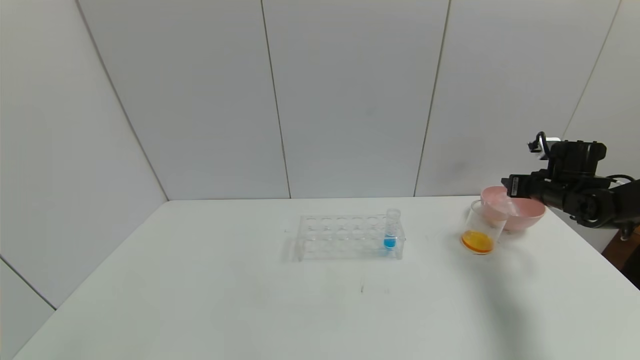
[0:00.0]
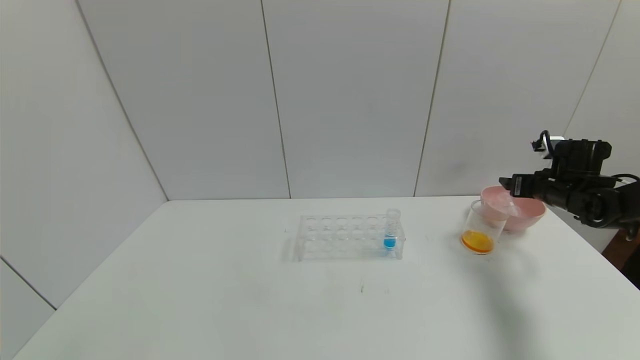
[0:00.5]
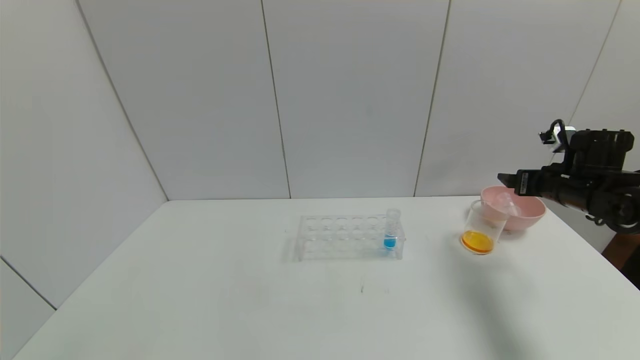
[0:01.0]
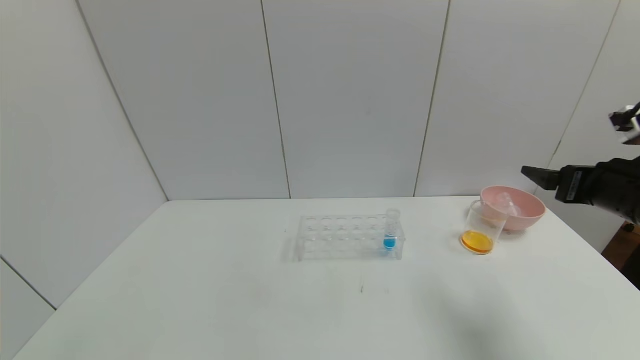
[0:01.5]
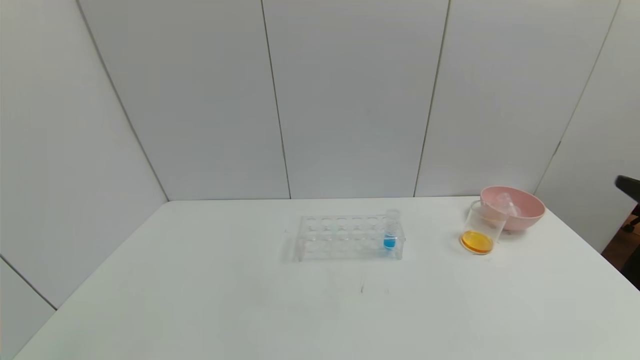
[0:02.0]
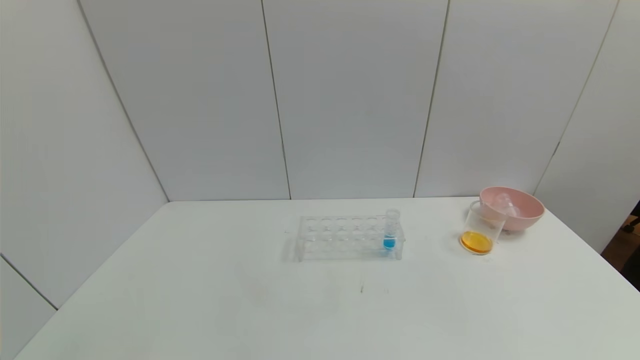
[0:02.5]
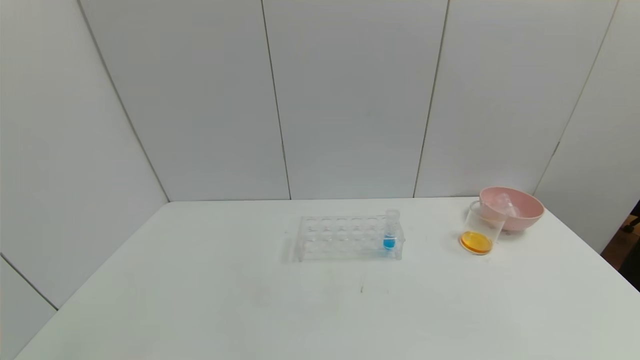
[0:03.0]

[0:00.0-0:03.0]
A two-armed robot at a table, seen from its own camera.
Task of the whole recording: pick up the test tube with yellow pigment and the test tube with red pigment by grippers and pour them into the beaker.
0:00.0 to 0:01.5: The right gripper moves backward and upward, roughly 20 cm, and opens.
0:01.5 to 0:03.0: The right gripper heads backward, covering roughly 35 cm.

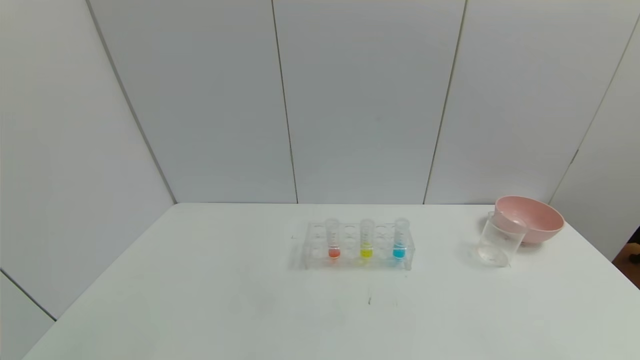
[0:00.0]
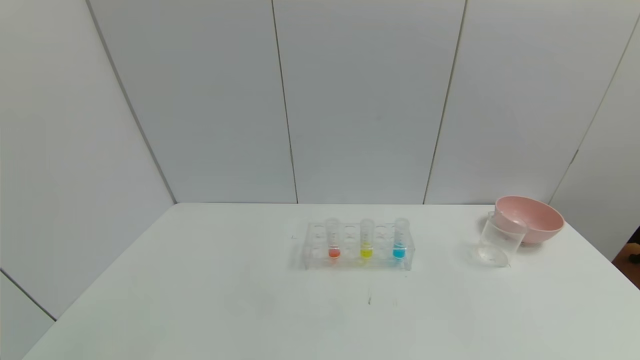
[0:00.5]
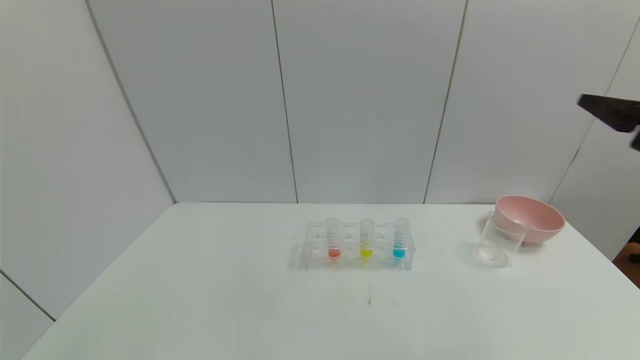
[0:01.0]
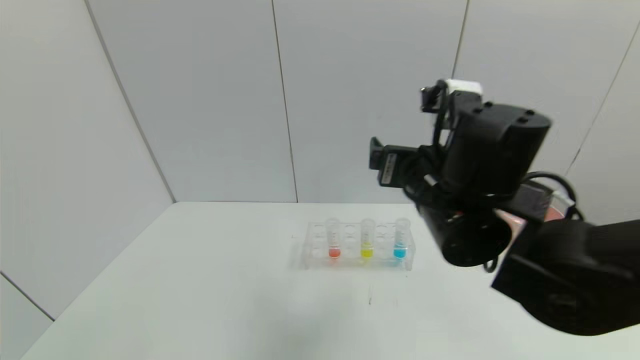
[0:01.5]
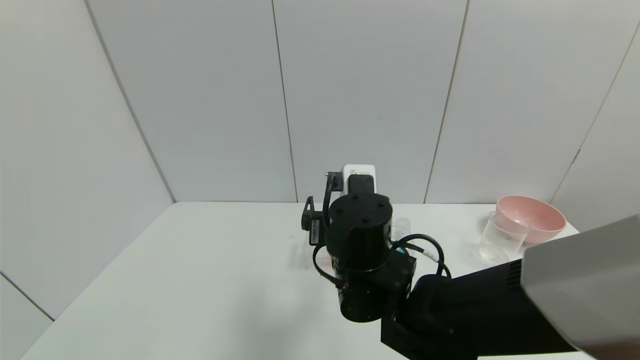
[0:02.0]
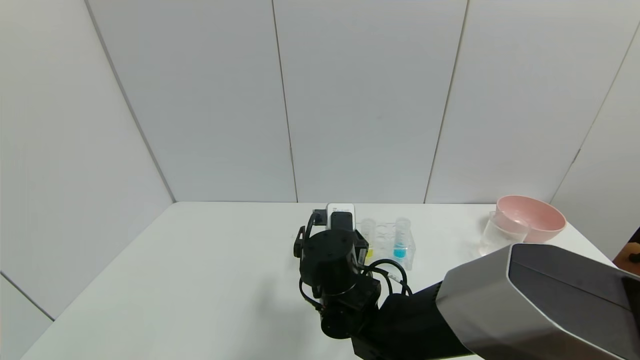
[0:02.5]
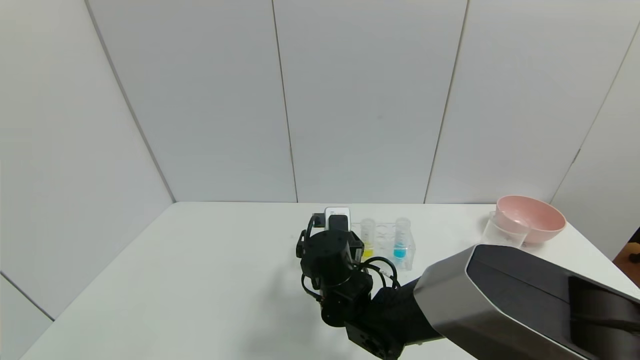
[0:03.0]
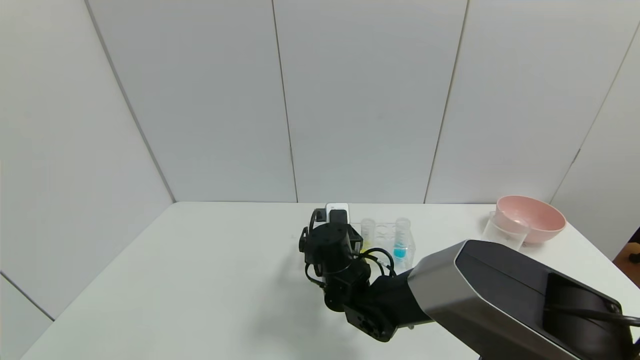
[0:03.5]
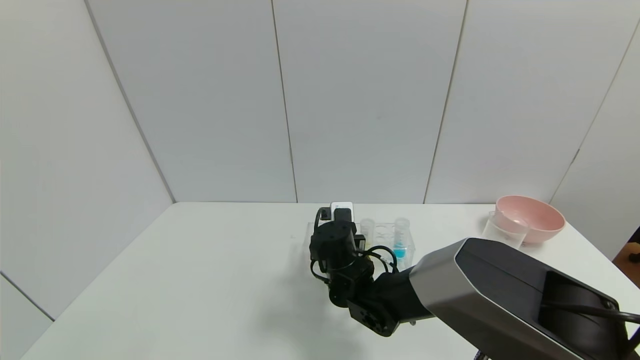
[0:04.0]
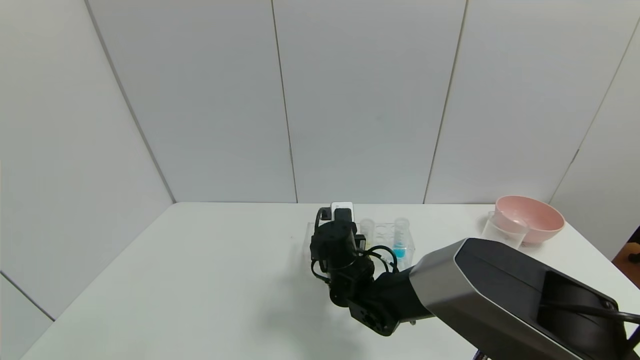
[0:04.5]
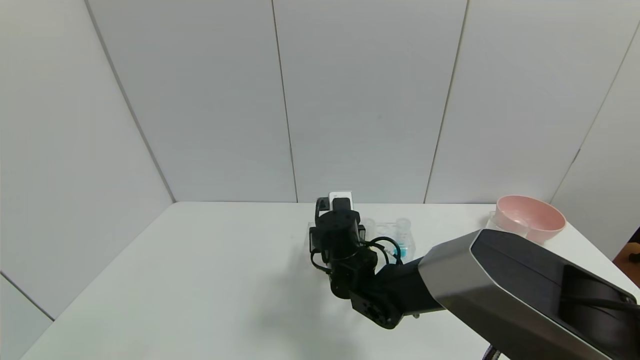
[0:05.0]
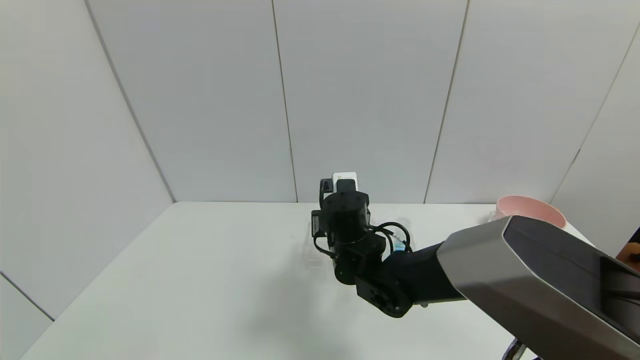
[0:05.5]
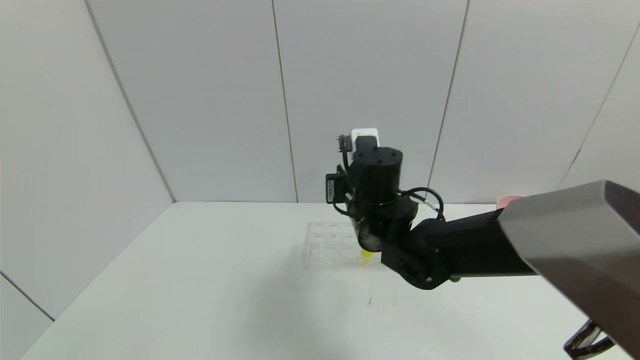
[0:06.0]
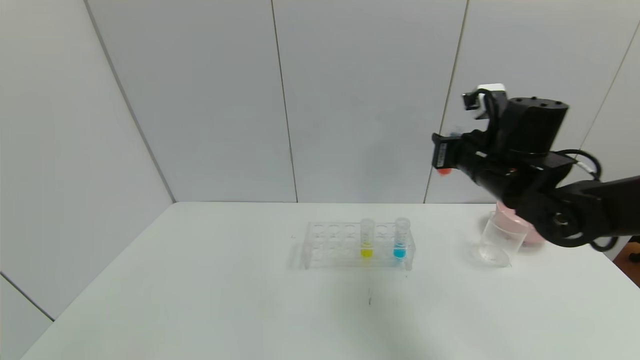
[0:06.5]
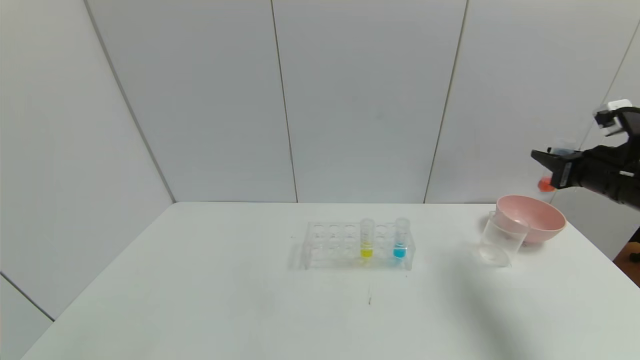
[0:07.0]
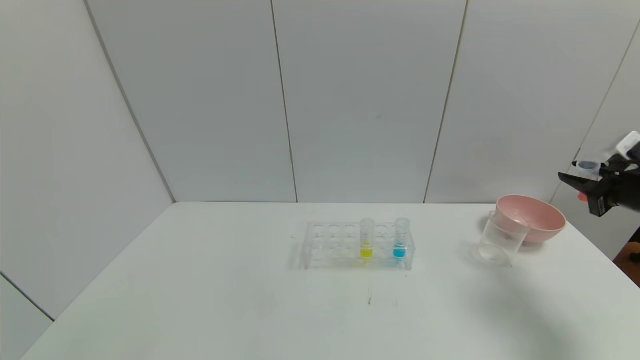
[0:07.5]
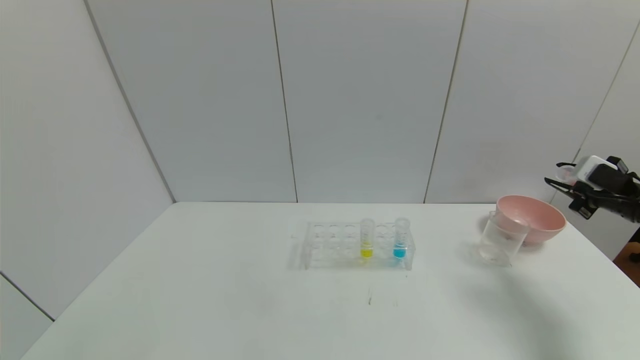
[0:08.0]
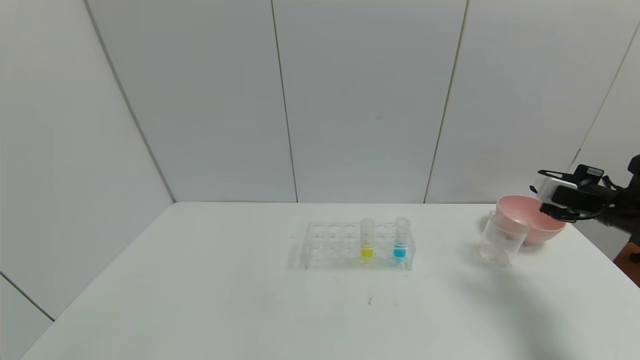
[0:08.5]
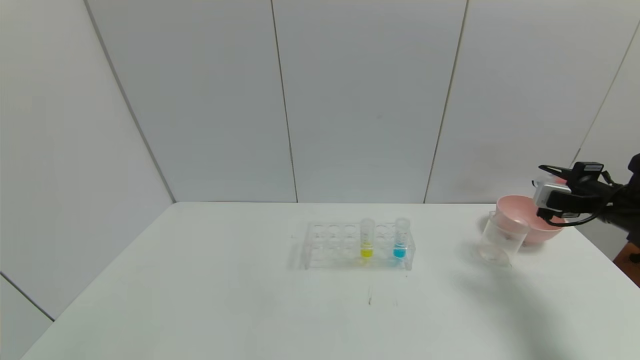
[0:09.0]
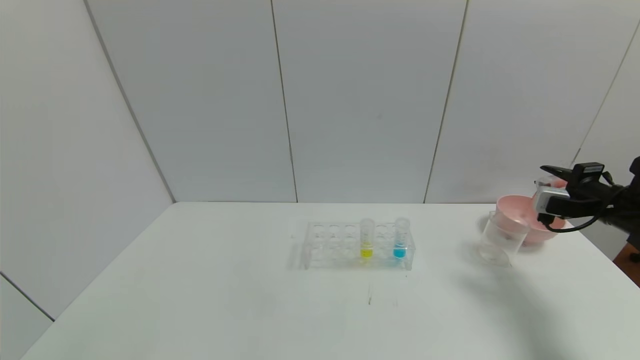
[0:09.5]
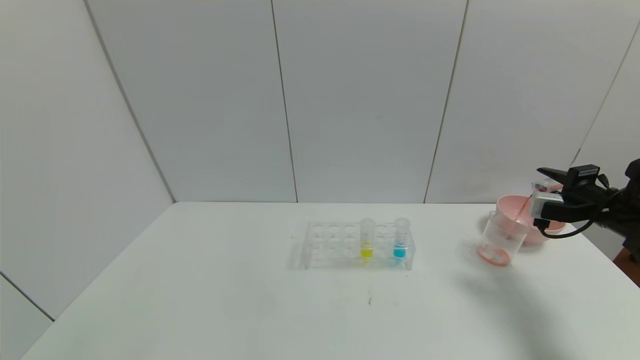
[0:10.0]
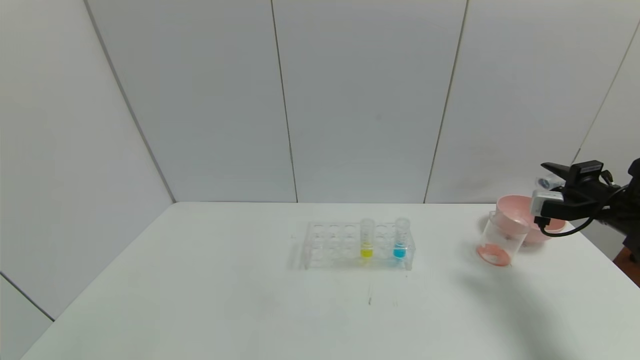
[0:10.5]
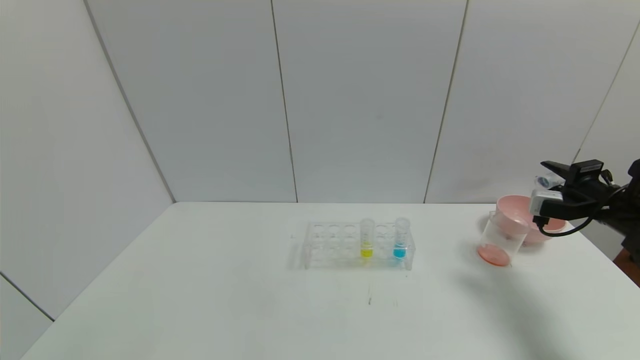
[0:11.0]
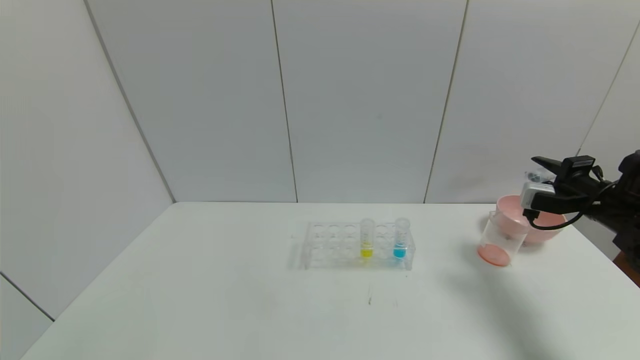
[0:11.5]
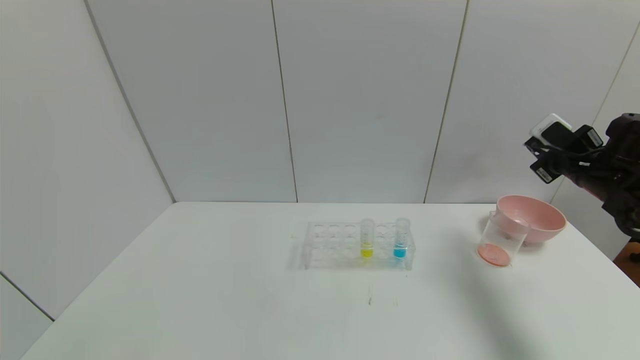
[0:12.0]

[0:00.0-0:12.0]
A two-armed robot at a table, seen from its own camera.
Task of the whole recording: pick up the test tube with yellow pigment and the test tube with red pigment by grippers and pour them into the beaker.
Step, 0:00.0 to 0:04.5: Grasp the red reagent with the right gripper.
Step, 0:05.0 to 0:10.5: Pour the red reagent into the graduated cylinder with the right gripper.
0:00.0 to 0:02.0: The right gripper goes roughly 50 cm to the left and forward.
0:02.0 to 0:04.0: The right gripper goes some 15 cm downward and forward, and closes.
0:04.0 to 0:06.0: The right gripper moves upward, some 15 cm.
0:06.0 to 0:08.0: The right gripper travels to the right by approximately 40 cm.
0:10.0 to 0:12.0: The right gripper shifts approximately 5 cm upward.

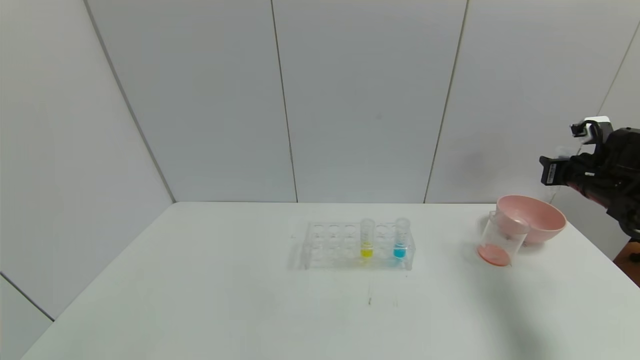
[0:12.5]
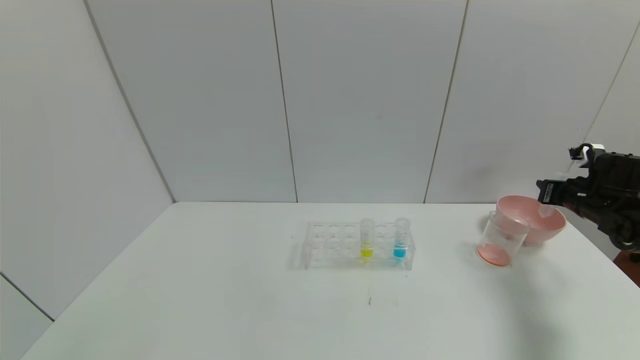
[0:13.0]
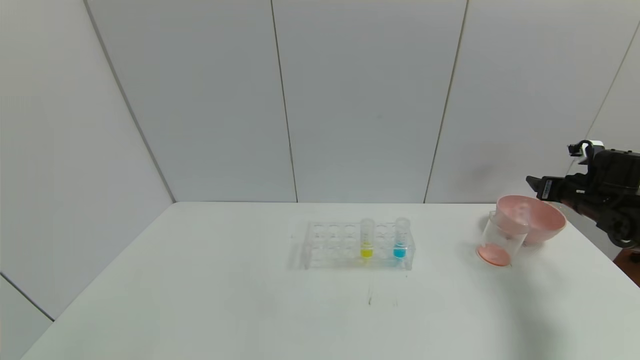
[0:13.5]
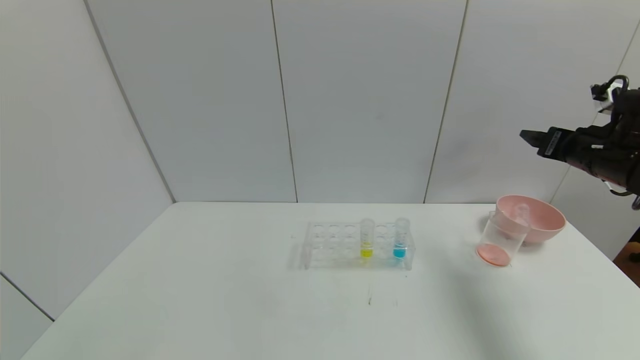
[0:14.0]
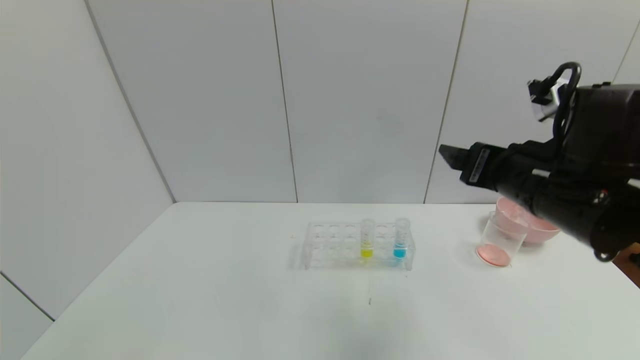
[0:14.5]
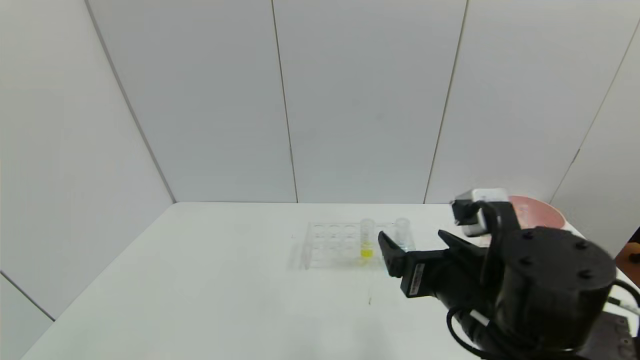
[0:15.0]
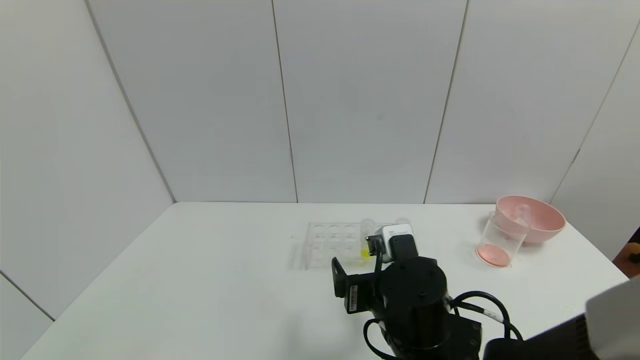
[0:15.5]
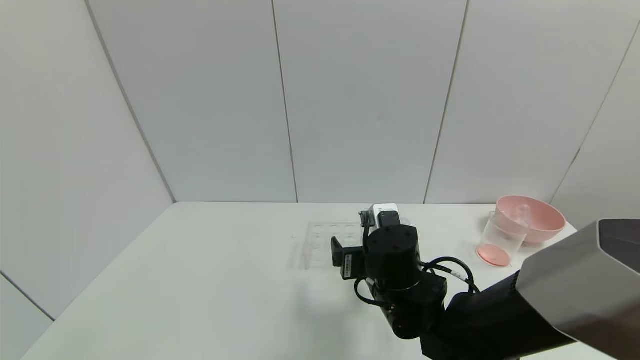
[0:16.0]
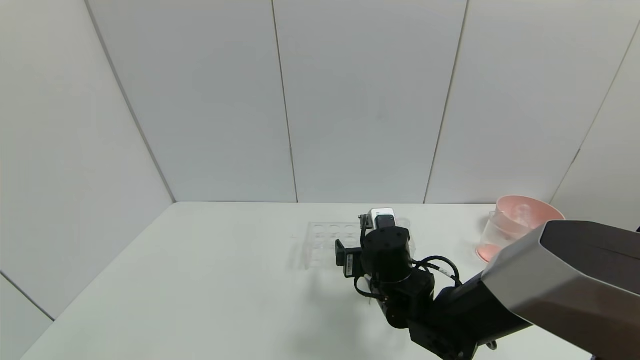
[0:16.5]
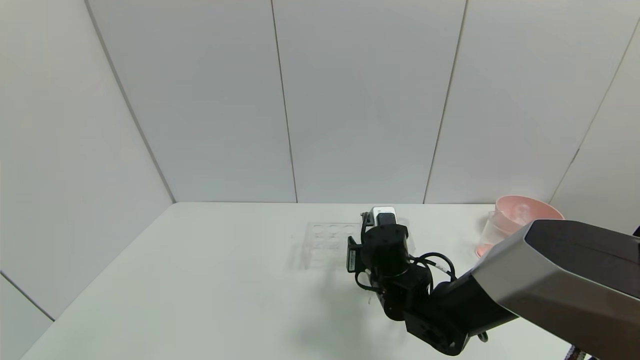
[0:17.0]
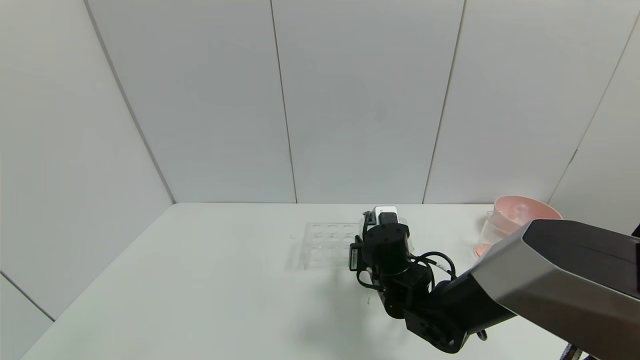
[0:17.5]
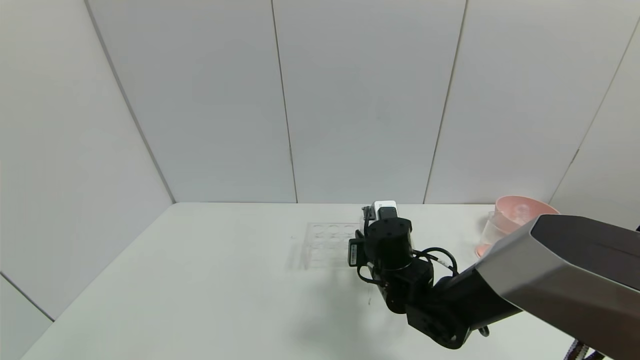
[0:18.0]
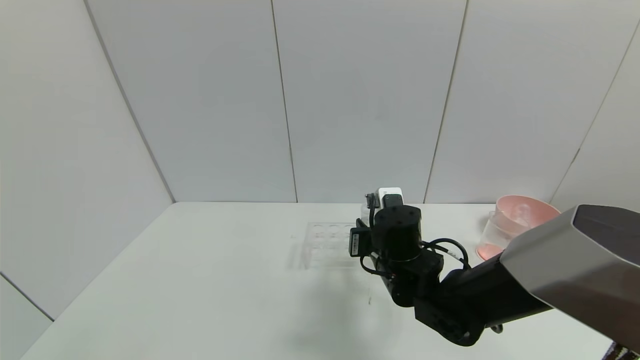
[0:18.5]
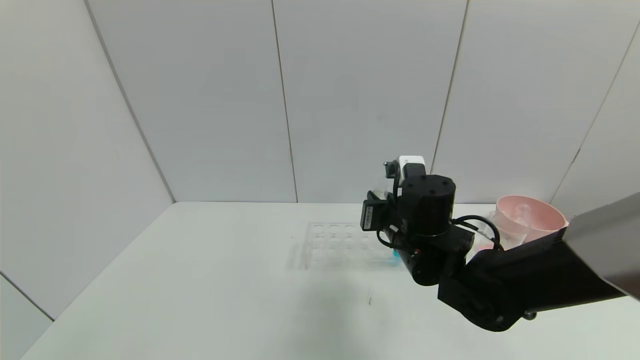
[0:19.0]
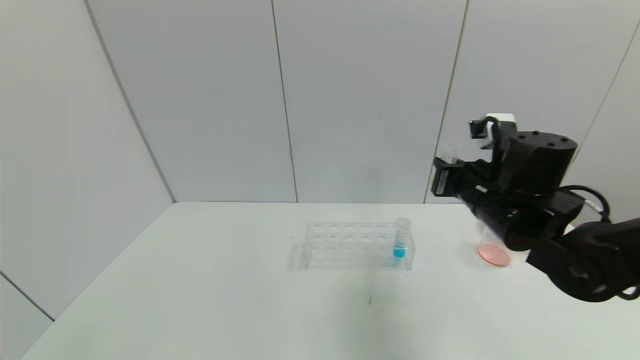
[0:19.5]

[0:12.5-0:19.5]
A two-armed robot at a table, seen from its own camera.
Task of the whole recording: pick up the test tube with yellow pigment and the test tube with red pigment by grippers and pour them into the beaker.
Step, 0:13.5 to 0:18.0: Grasp the yellow reagent with the right gripper.
0:12.5 to 0:14.5: The right gripper heads to the left and backward, covering about 30 cm, and opens.
0:14.5 to 0:16.0: The right gripper shifts about 20 cm downward and to the left.
0:16.0 to 0:17.5: The right gripper shifts by approximately 5 cm, and closes its fingers.
0:17.5 to 0:19.5: The right gripper is displaced upward and to the right by some 20 cm.
